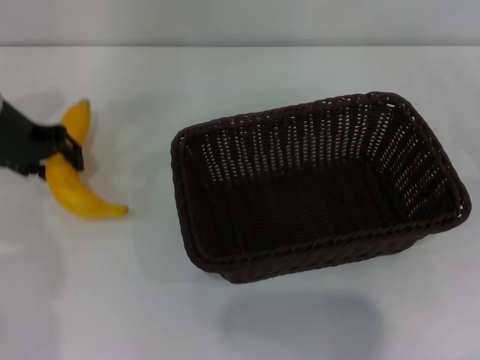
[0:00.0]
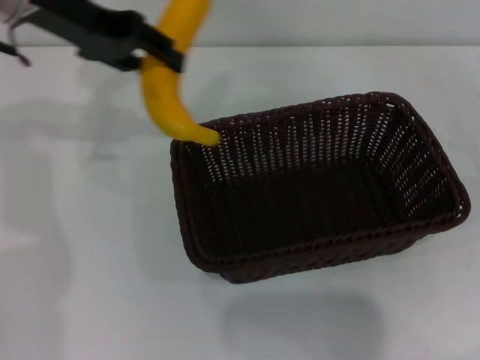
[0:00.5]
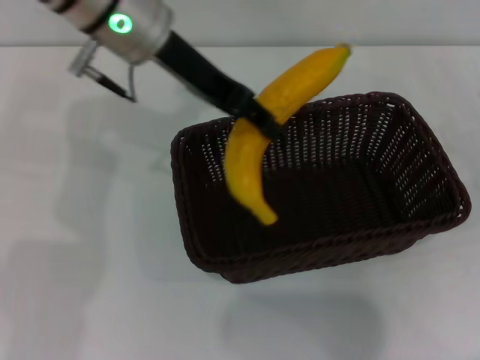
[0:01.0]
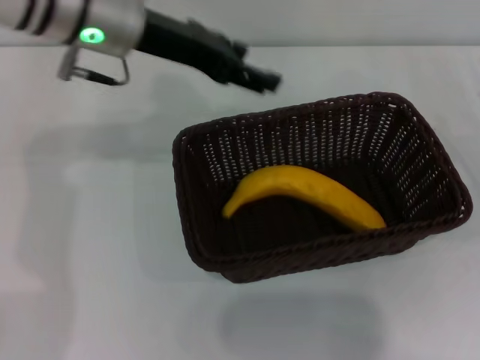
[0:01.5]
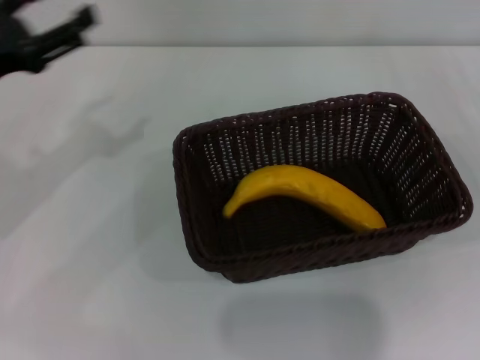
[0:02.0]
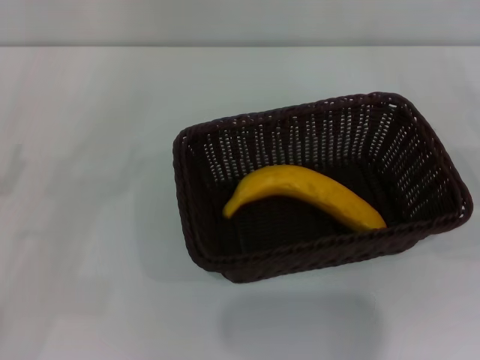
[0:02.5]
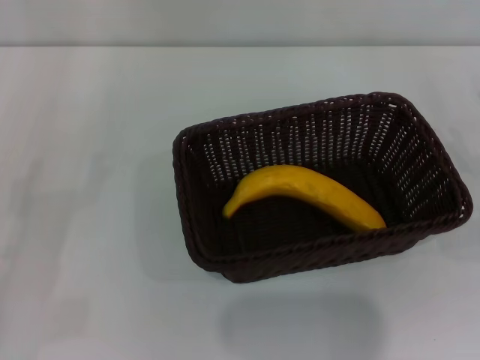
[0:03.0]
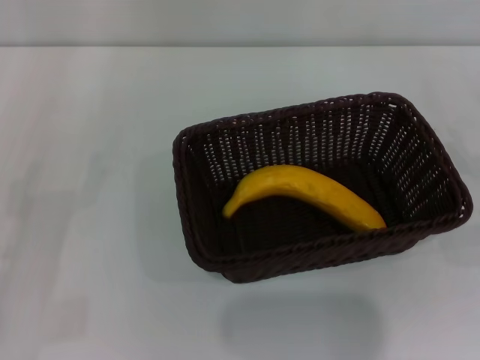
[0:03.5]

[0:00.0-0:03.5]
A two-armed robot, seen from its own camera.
Step, 0:00.5 to 0:01.5: Place the banana into the dark basket with the left gripper.
0:00.0 to 0:02.0: The left gripper is displaced backward by about 10 cm, goes to the right and returns, about 15 cm each way, and opens its fingers.
0:02.0 to 0:03.5: The left gripper is displaced downward and backward by approximately 15 cm.
